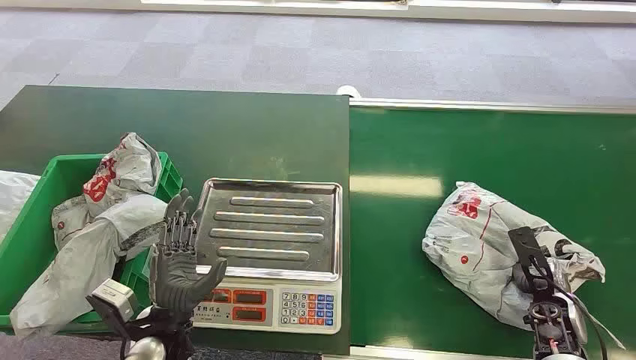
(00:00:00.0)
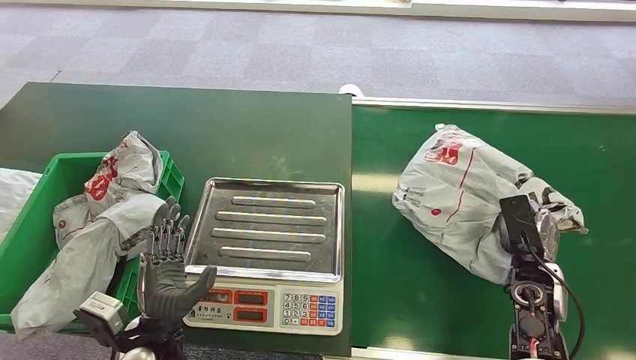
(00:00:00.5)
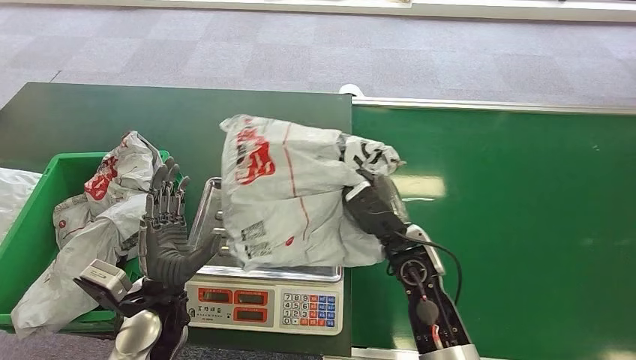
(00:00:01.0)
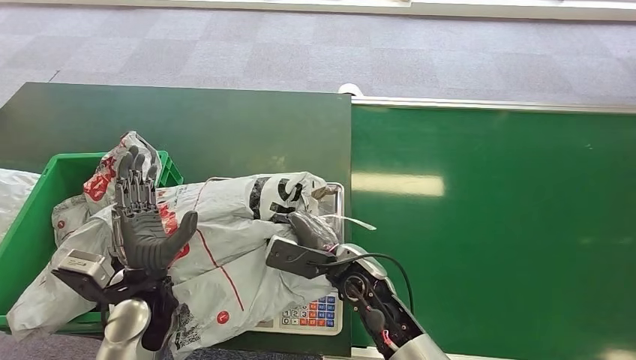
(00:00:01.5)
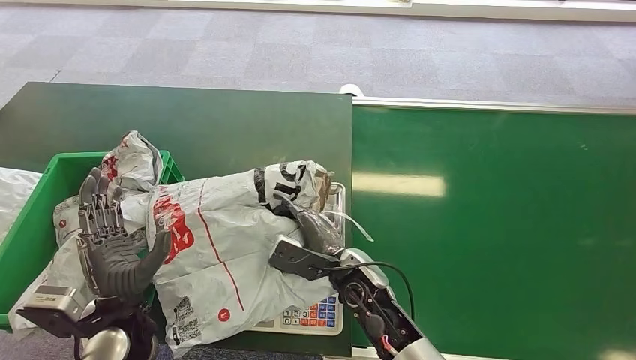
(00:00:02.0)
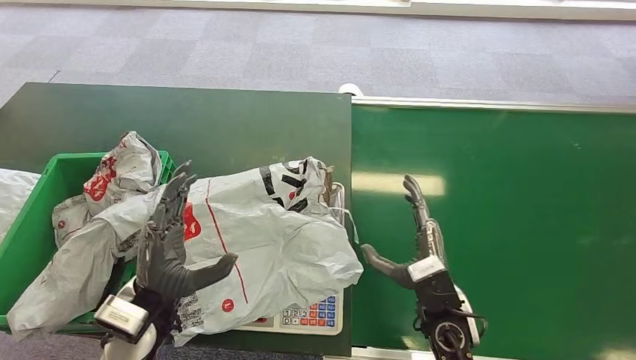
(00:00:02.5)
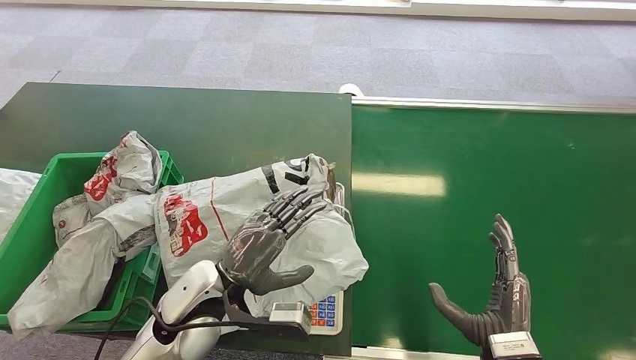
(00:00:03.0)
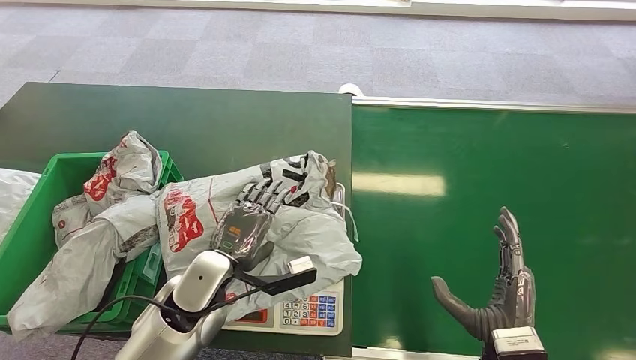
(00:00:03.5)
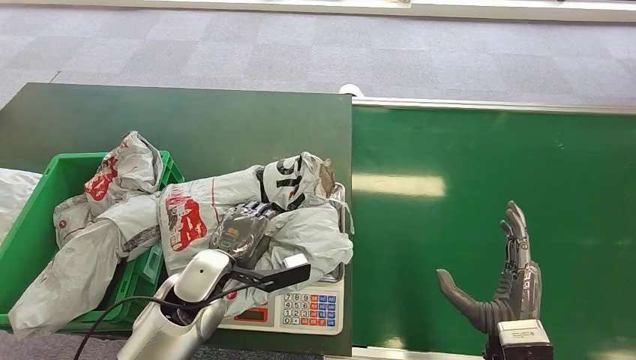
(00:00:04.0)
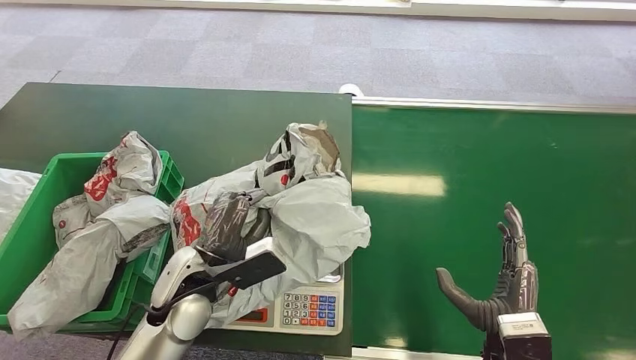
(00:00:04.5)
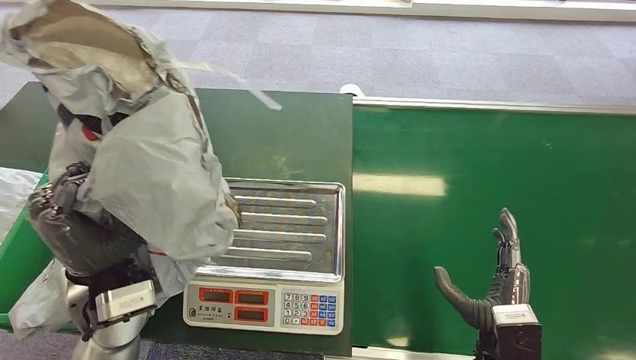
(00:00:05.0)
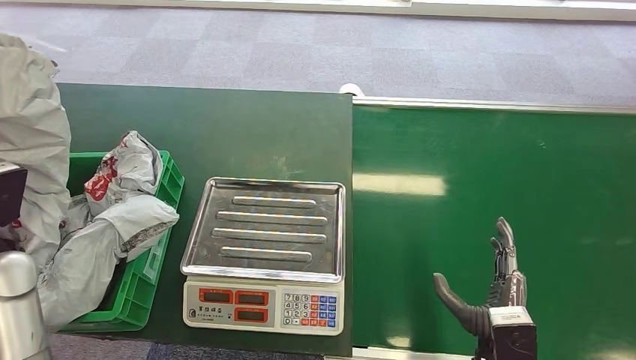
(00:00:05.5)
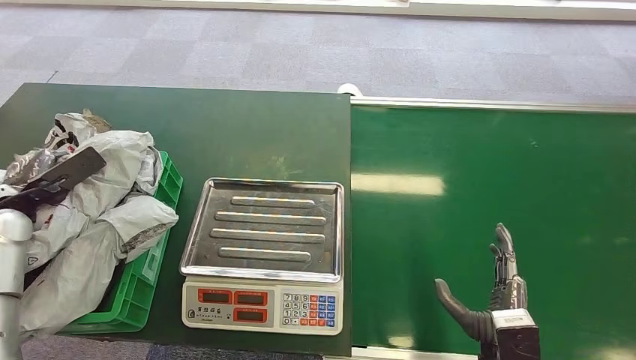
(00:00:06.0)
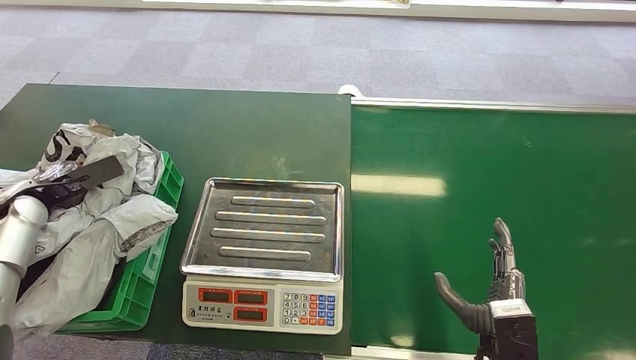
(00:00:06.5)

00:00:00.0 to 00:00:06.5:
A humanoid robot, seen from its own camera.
Step, 00:00:00.0 to 00:00:00.5: Pick up the package from the conveyor belt.
Step, 00:00:01.0 to 00:00:02.0: Place the package onto the inbound machine.
Step, 00:00:04.0 to 00:00:04.5: Pick up the package from the inbound machine.
Step, 00:00:06.0 to 00:00:06.5: Place the package into the parcel locker.
